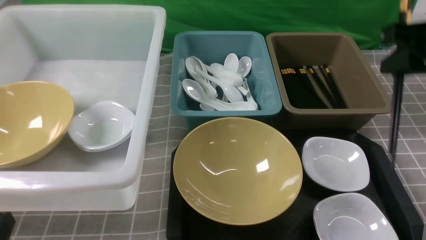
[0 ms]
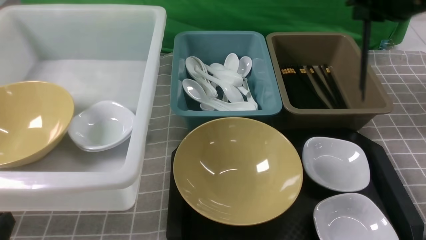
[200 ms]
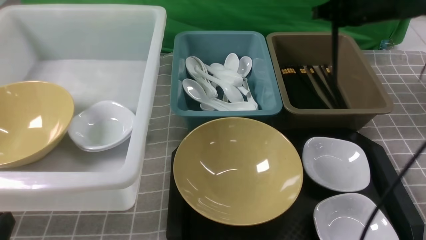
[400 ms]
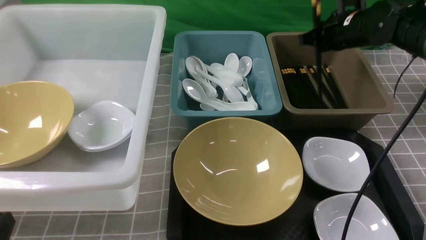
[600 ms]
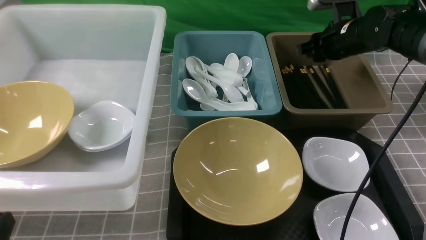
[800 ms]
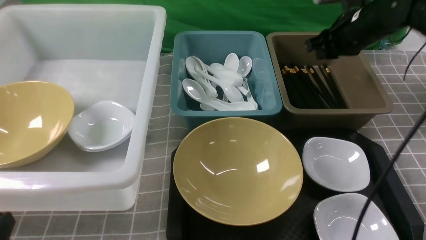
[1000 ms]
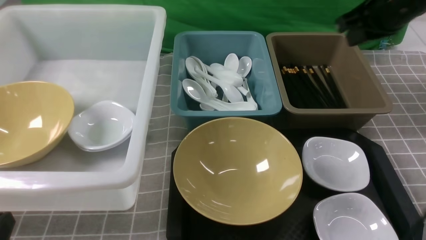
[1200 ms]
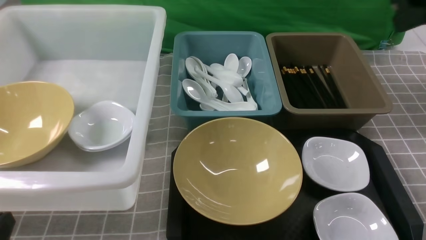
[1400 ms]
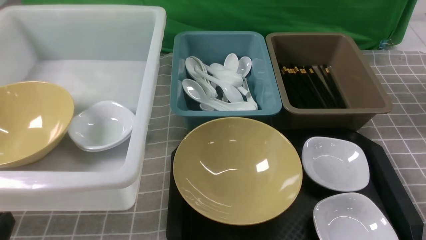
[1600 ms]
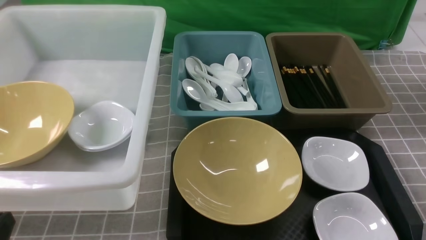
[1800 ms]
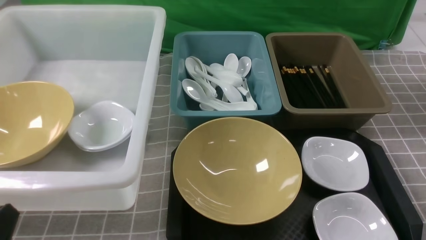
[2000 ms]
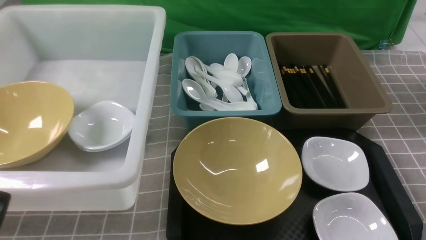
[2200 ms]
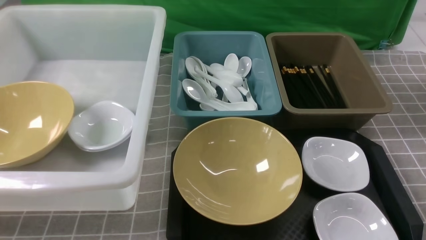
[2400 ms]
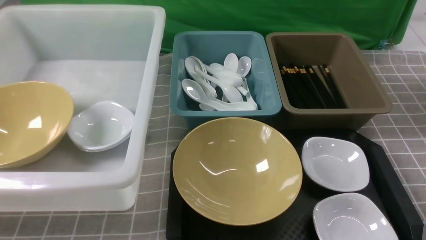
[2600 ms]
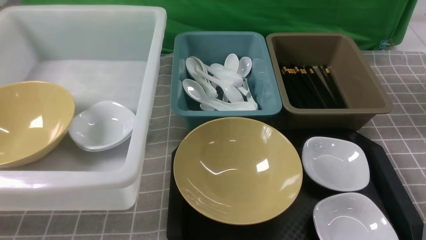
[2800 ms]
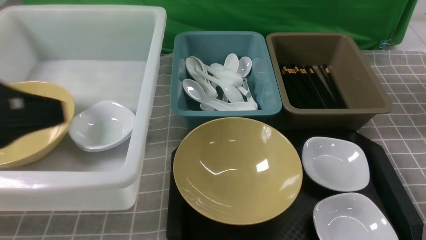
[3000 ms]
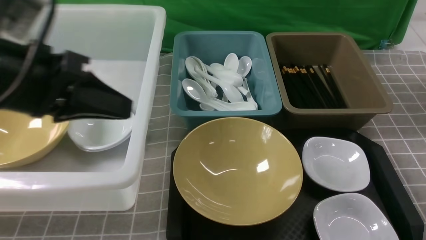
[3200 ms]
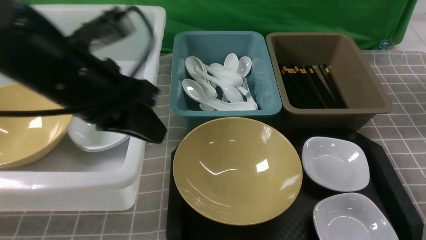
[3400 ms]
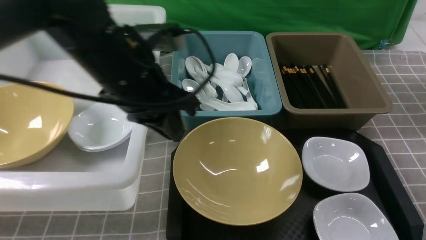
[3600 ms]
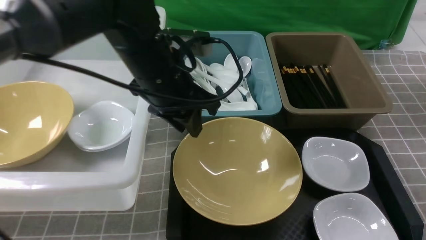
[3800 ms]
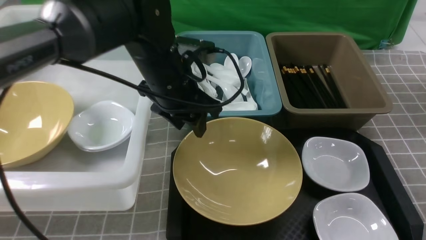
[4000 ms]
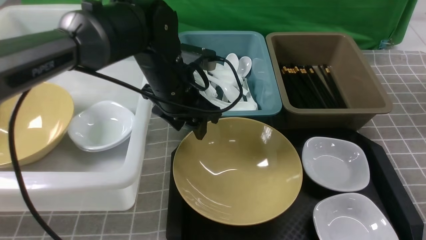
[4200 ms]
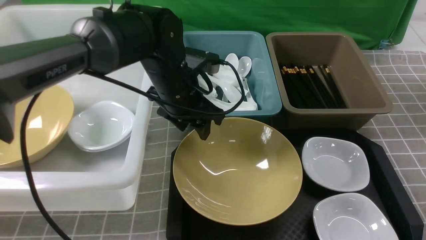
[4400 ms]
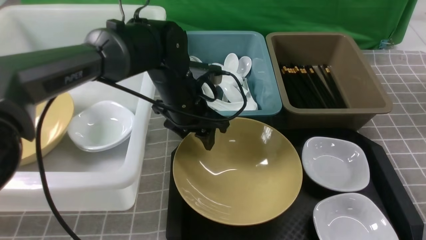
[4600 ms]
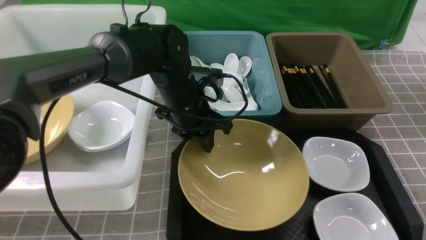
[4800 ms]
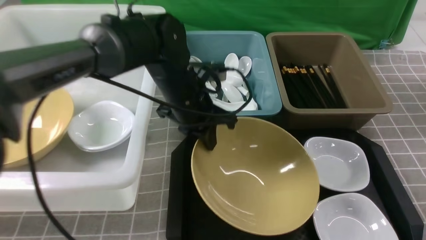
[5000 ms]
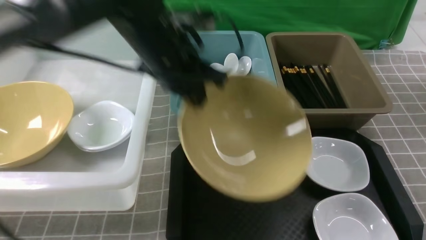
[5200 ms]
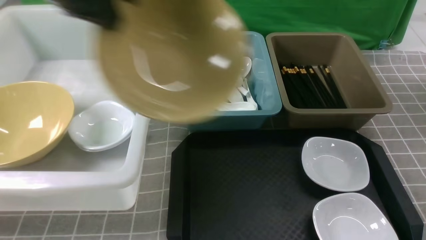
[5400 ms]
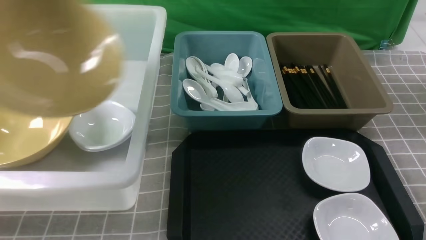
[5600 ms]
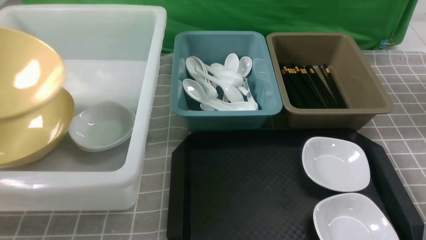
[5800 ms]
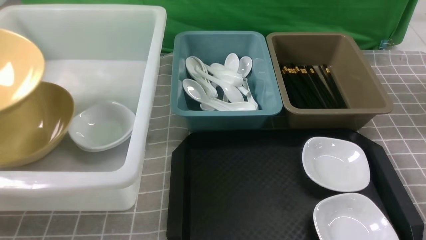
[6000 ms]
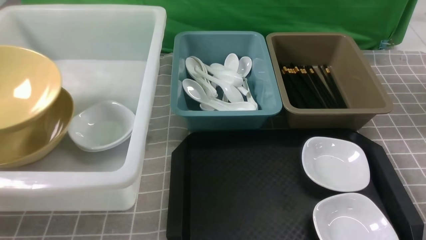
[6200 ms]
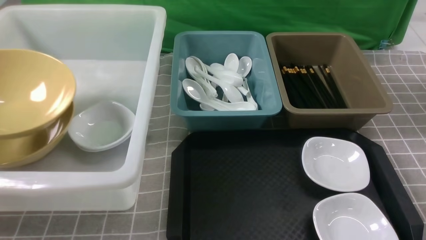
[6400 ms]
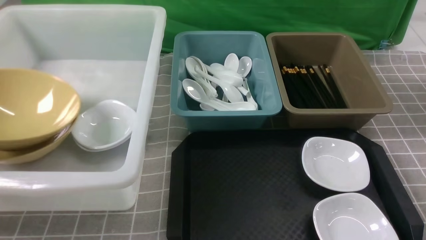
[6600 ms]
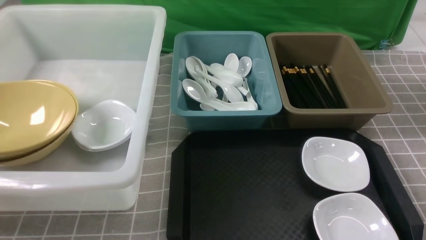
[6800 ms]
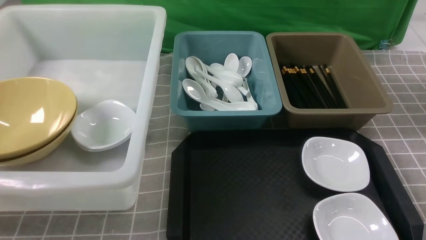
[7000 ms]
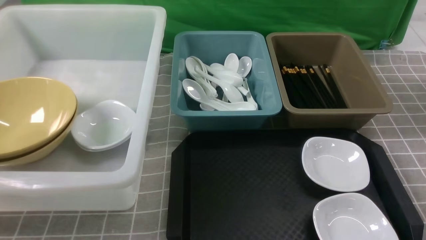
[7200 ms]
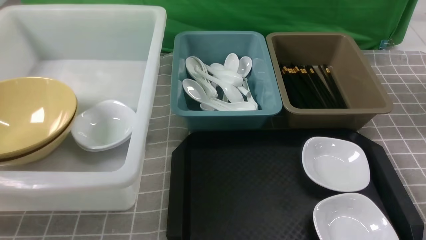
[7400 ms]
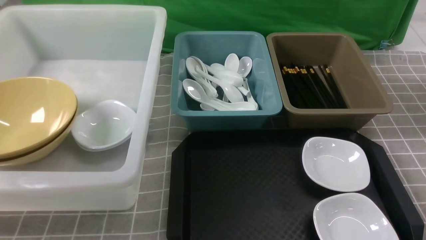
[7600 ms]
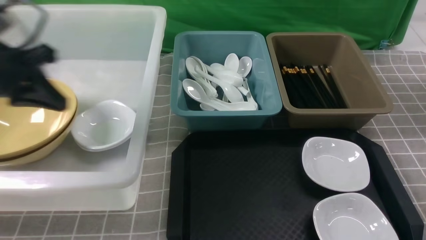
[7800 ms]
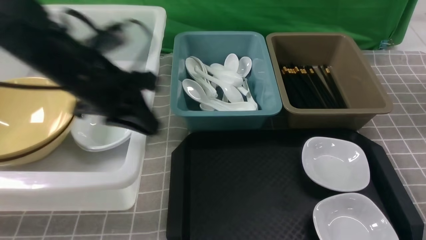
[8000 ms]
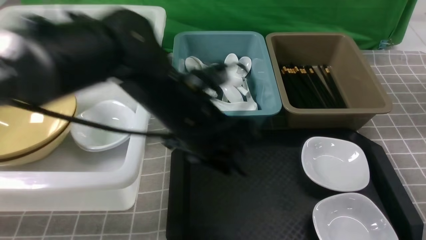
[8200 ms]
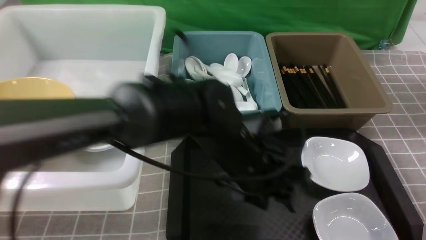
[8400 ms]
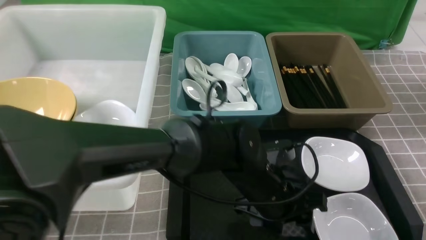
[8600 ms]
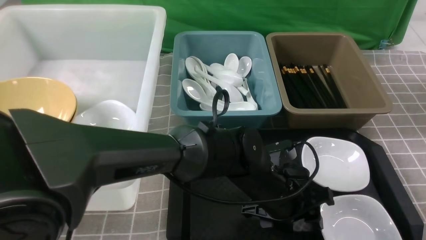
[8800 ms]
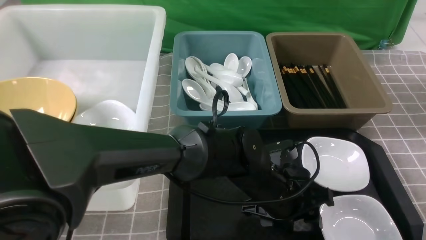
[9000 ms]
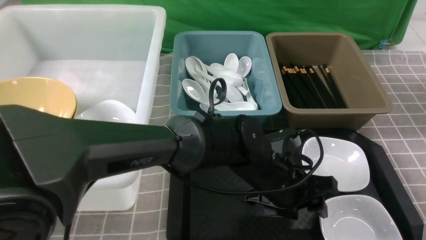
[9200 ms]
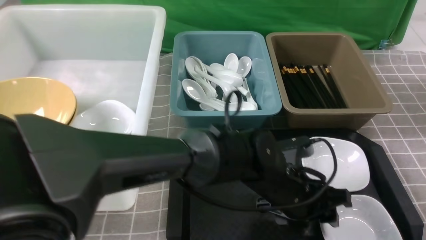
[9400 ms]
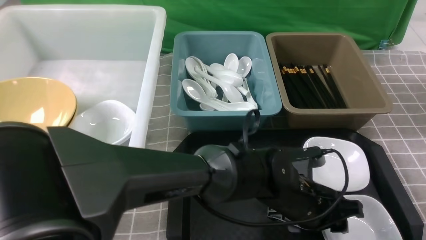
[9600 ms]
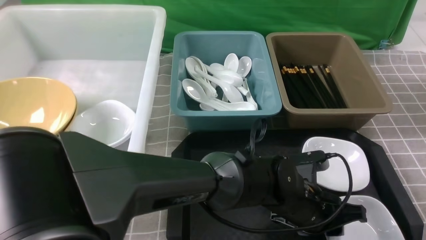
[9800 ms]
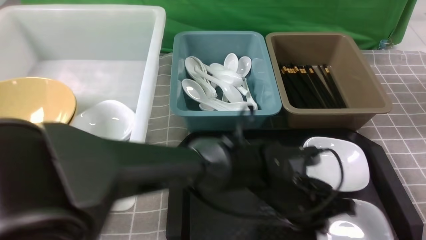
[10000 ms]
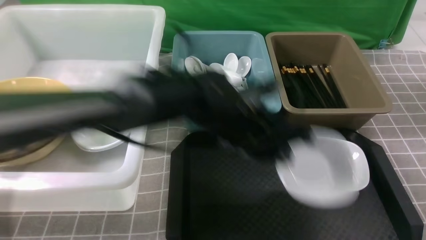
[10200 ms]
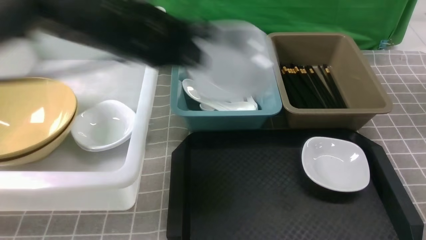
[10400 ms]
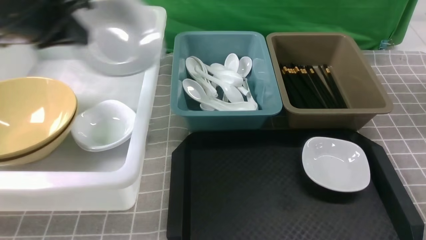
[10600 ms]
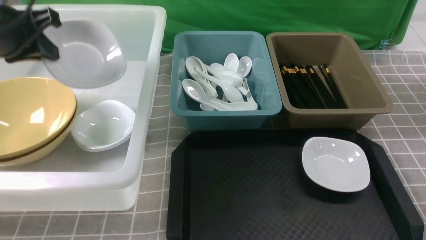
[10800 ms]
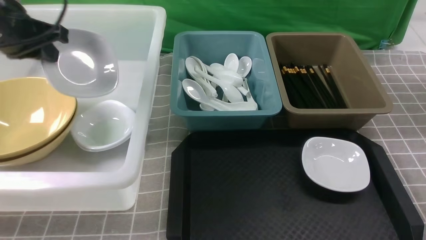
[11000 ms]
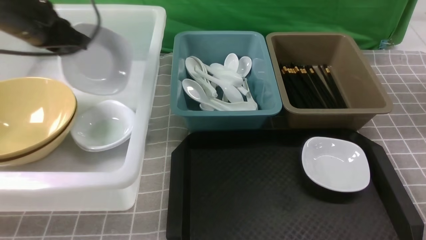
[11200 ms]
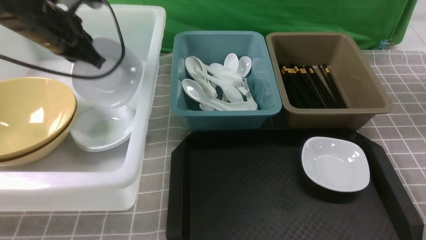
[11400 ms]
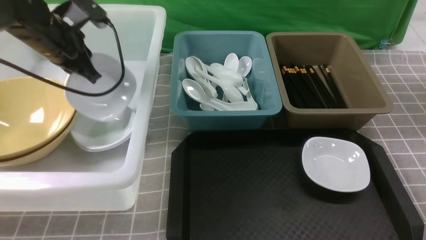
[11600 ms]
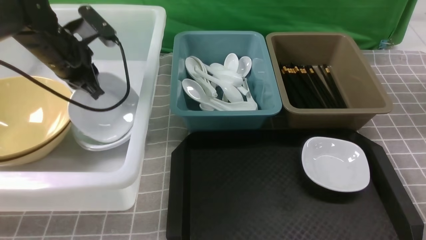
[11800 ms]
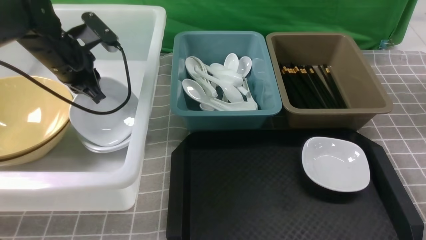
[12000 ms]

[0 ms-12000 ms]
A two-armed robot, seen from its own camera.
Task of the whole recording: on grey table put chopsticks spoon bowls plates into blue grey white boxes.
Step, 0 ms to 1000 ms: use the right arm to put the chopsticks into the small storage box on the right.
Step, 1200 ms to 5200 ms: use the left arm to grab the yellow noodle bowl on the left.
Step, 5400 ms to 7600 ms: use the left arm to put the noodle bowl into the large storage box on the left.
Step, 7800 ms to 10200 ms: use the left arm to grab the plate.
0 ms to 1600 ms: The right gripper goes roughly 15 cm backward and upward.
1600 ms to 3000 ms: The left gripper heads upward and forward, covering some 20 cm.
3000 ms to 4400 ms: The left gripper shifts some 30 cm forward, to the right and downward, and opens.
4400 ms to 6000 ms: The left gripper is displaced to the left by some 40 cm, and closes up.
6000 ms to 7600 ms: The left gripper moves to the right, about 10 cm, and opens, then closes once more.
7600 ms to 9000 ms: The left gripper goes about 40 cm to the right, and opens its fingers.
9000 ms to 10400 ms: The left gripper moves to the left and upward, some 30 cm, and closes its fingers.
10400 ms to 12000 ms: The left gripper is displaced to the left, forward and downward by some 15 cm.

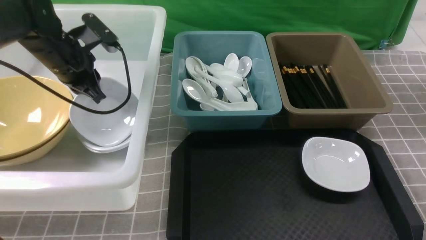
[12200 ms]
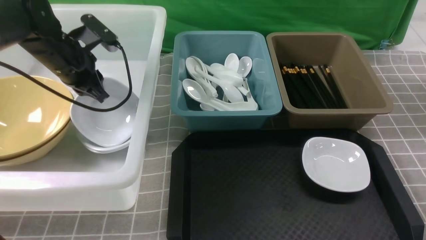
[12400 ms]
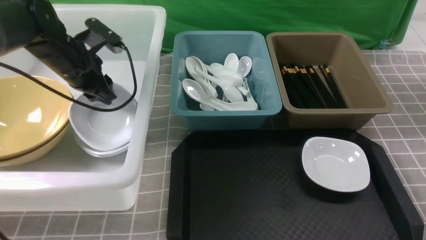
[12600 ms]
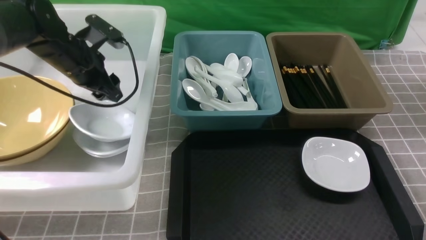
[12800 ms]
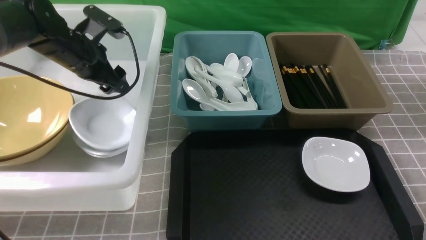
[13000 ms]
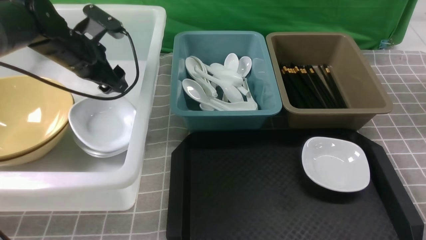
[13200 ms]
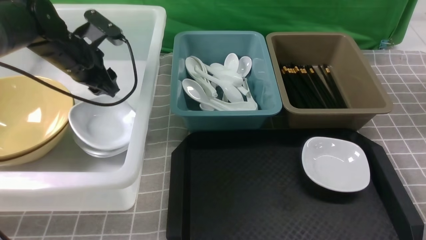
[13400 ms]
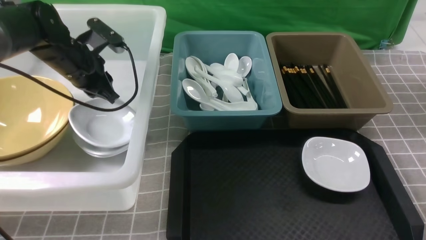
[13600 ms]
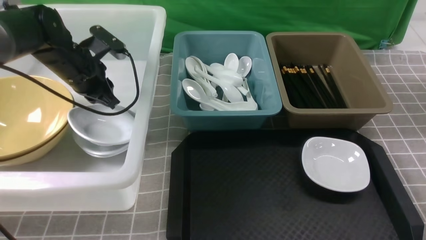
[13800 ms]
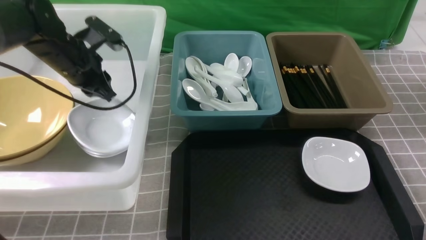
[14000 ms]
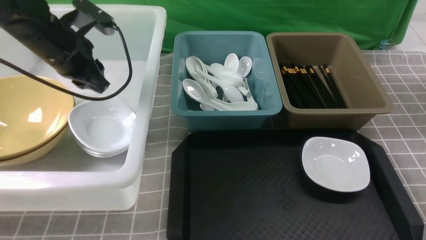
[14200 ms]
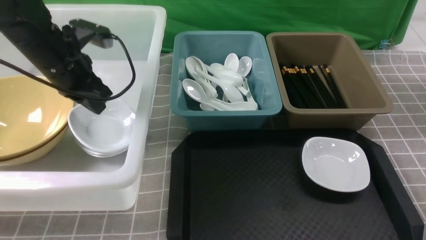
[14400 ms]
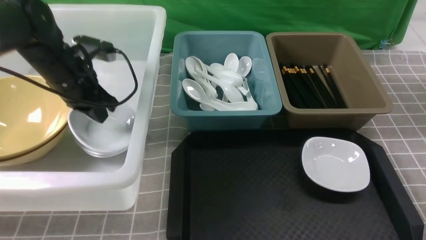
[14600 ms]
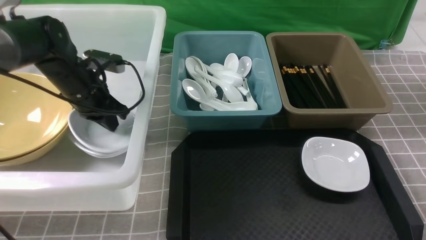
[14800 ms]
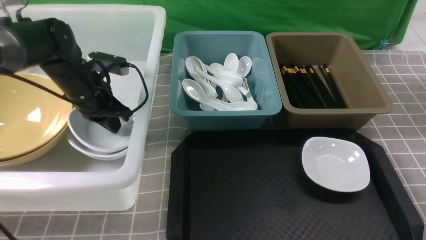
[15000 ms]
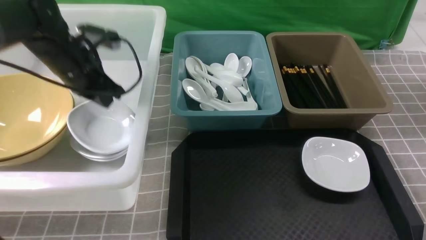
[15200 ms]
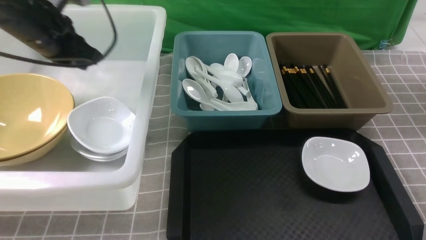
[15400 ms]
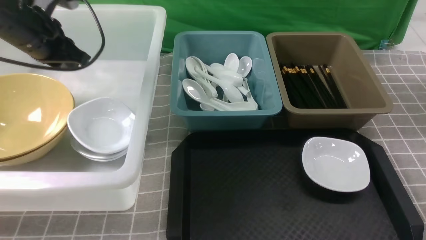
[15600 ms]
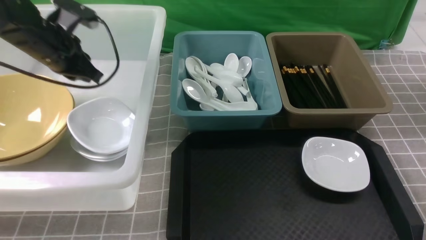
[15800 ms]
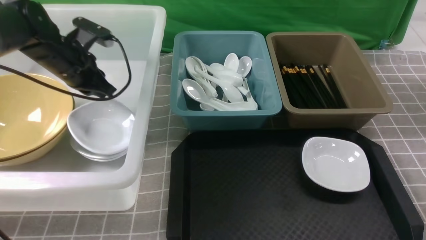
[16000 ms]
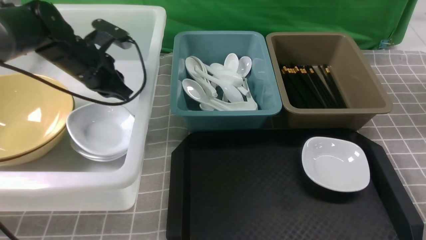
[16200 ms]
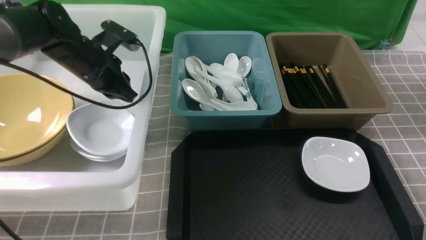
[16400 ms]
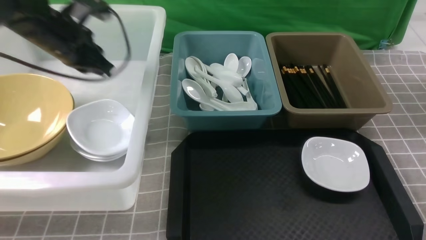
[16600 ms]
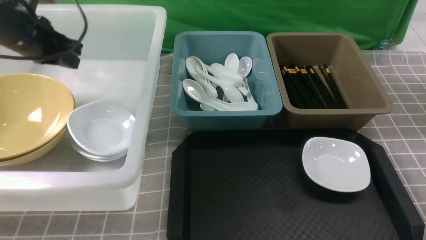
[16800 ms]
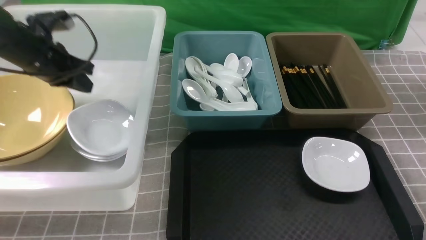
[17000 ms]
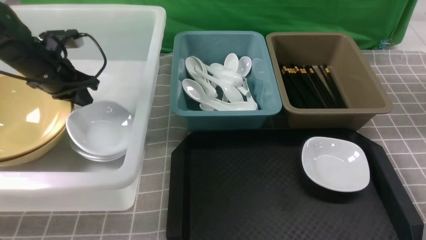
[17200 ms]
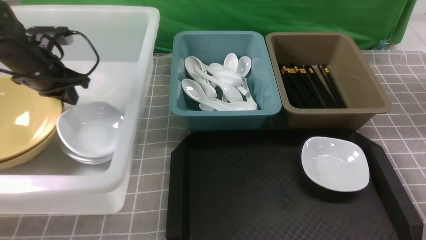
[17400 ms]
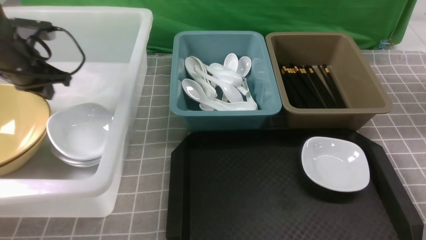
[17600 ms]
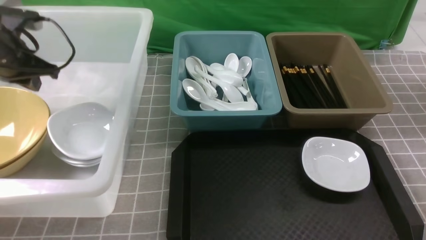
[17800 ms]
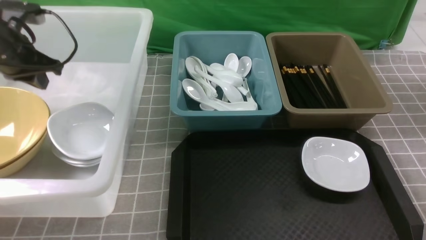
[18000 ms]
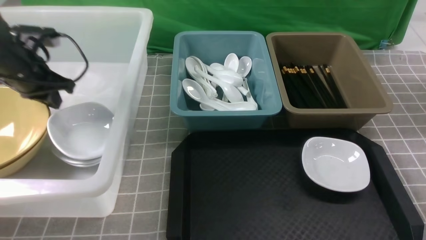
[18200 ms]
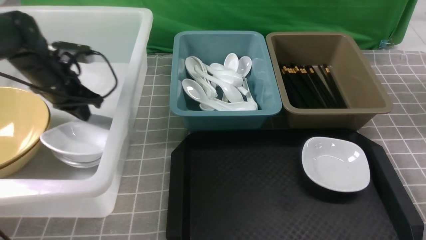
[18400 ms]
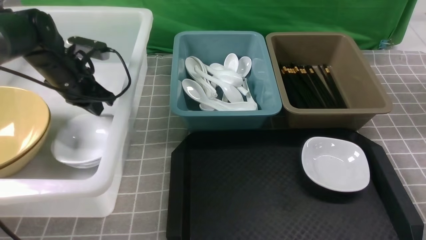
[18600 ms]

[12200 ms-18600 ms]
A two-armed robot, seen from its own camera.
Task of the whole recording: on grey table put chopsticks spoon bowls plates into blue grey white boxes.
12200 ms to 13800 ms: The left gripper opens and closes again.
13800 ms to 15400 ms: The left gripper goes roughly 5 cm upward.
15400 ms to 17000 ms: The left gripper travels downward by about 5 cm.
17000 ms to 18600 ms: The grippers stay close to where they were, moving slightly.
